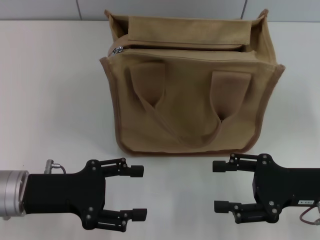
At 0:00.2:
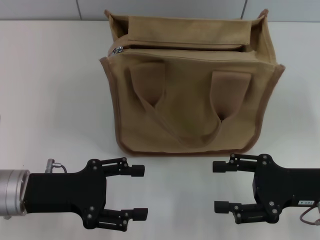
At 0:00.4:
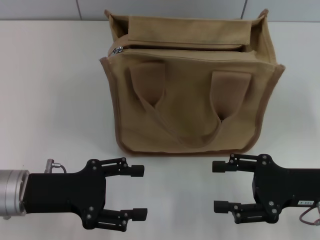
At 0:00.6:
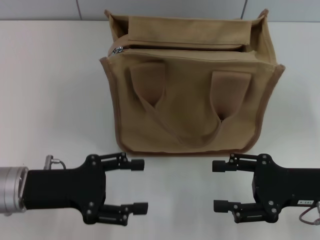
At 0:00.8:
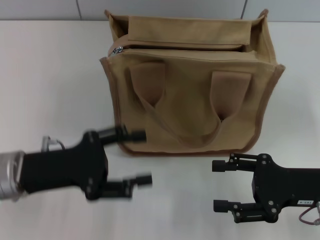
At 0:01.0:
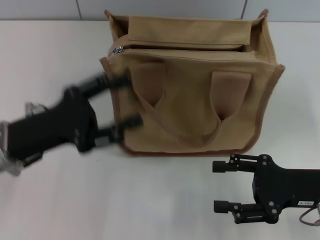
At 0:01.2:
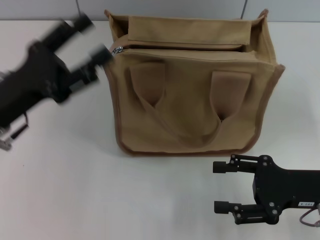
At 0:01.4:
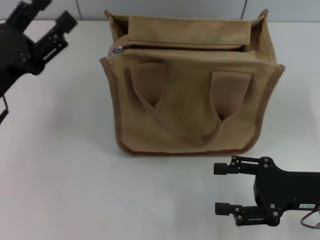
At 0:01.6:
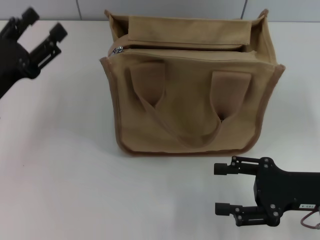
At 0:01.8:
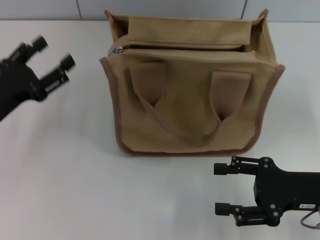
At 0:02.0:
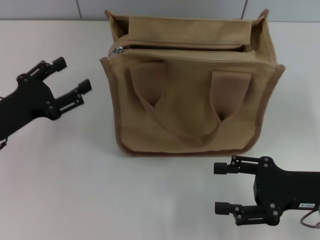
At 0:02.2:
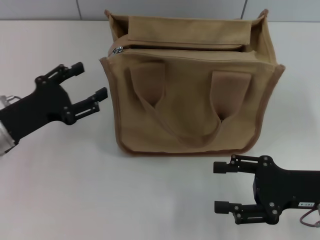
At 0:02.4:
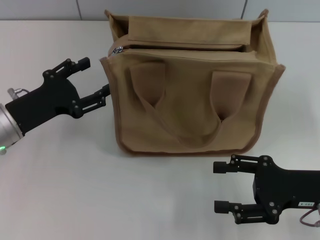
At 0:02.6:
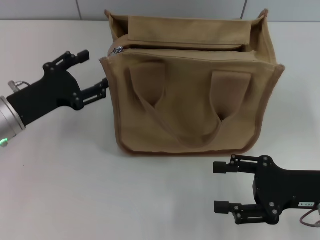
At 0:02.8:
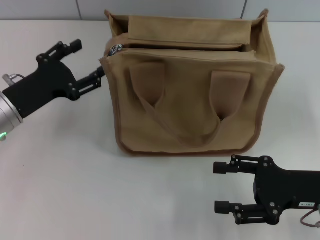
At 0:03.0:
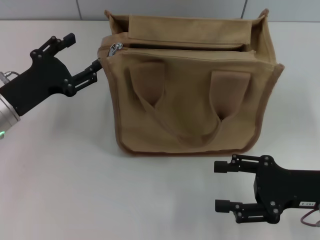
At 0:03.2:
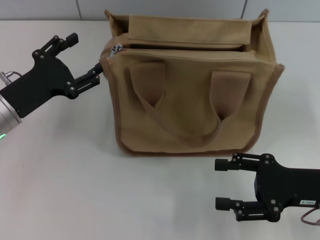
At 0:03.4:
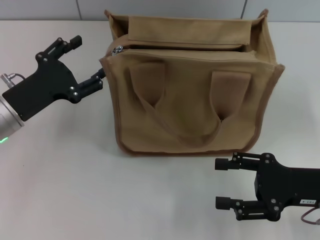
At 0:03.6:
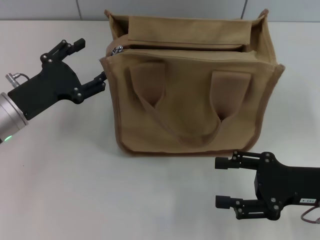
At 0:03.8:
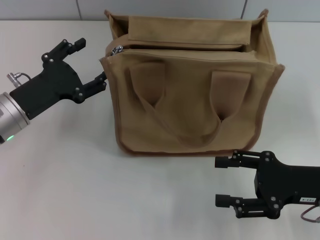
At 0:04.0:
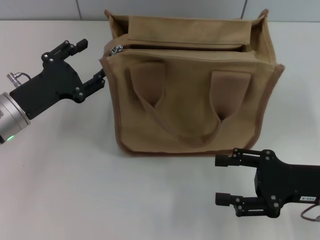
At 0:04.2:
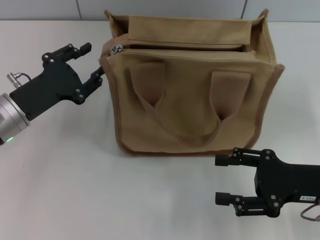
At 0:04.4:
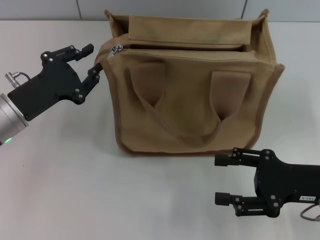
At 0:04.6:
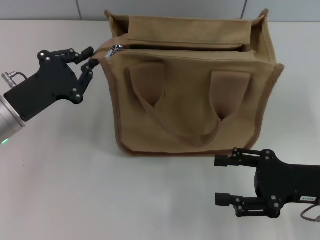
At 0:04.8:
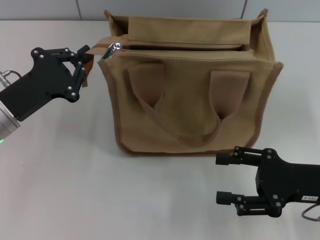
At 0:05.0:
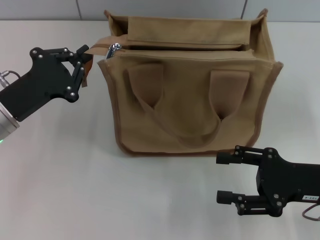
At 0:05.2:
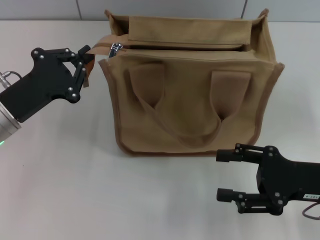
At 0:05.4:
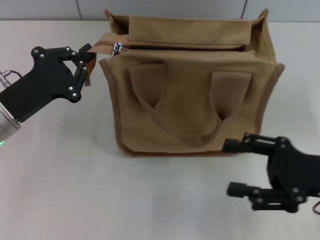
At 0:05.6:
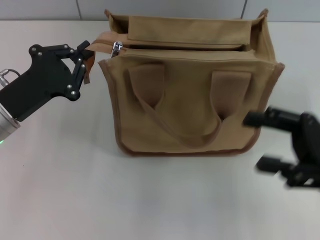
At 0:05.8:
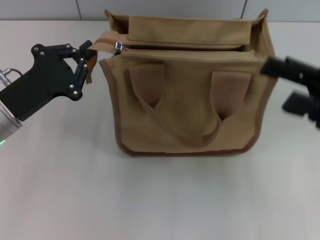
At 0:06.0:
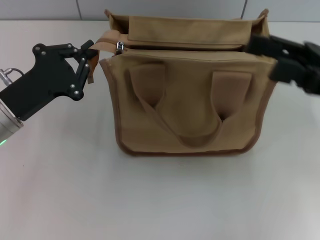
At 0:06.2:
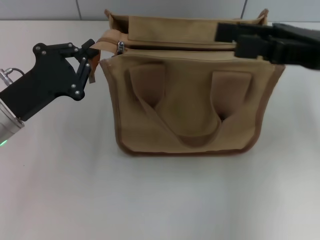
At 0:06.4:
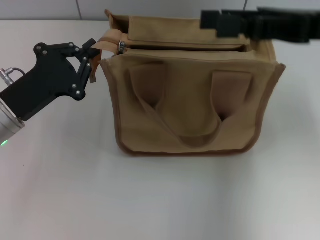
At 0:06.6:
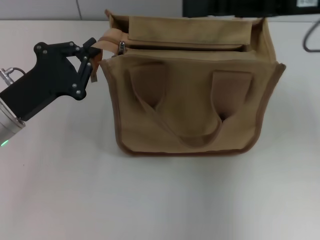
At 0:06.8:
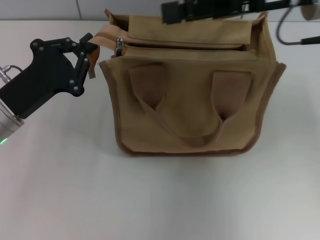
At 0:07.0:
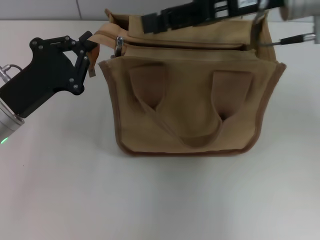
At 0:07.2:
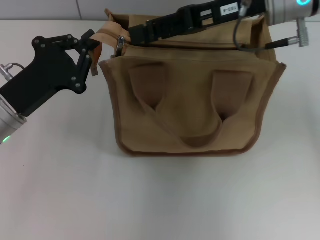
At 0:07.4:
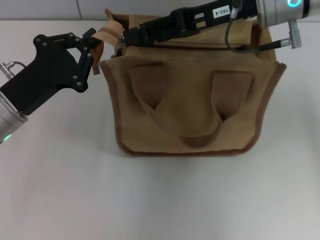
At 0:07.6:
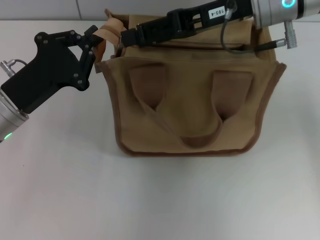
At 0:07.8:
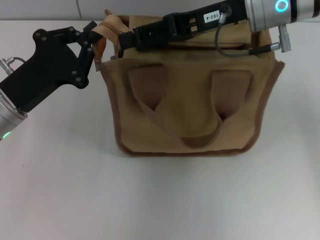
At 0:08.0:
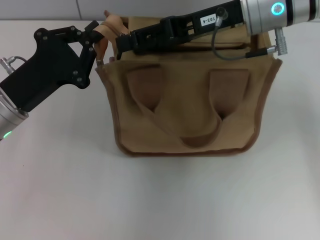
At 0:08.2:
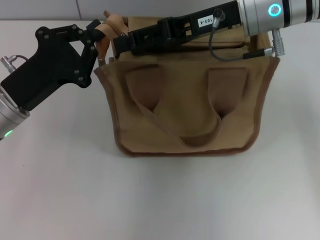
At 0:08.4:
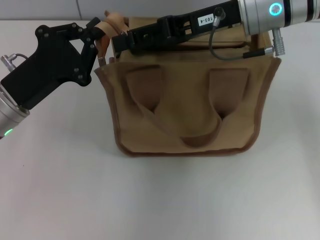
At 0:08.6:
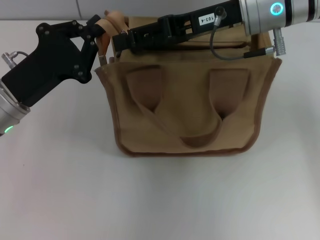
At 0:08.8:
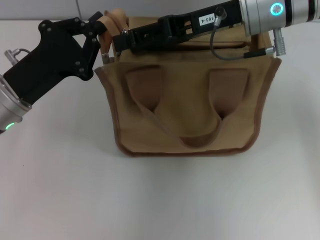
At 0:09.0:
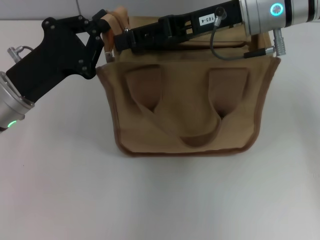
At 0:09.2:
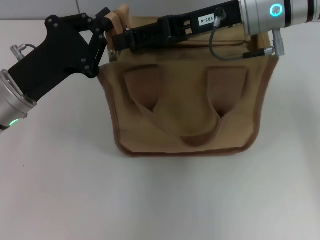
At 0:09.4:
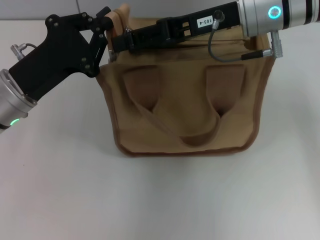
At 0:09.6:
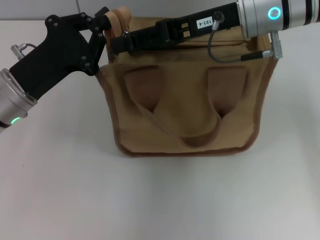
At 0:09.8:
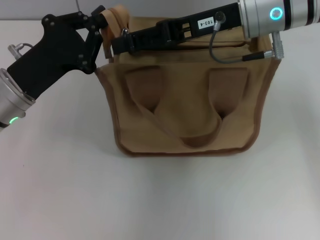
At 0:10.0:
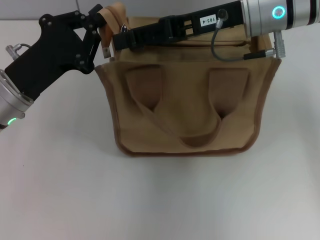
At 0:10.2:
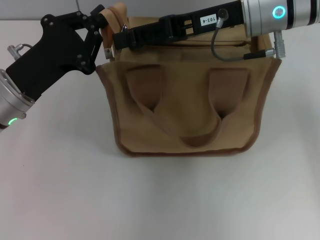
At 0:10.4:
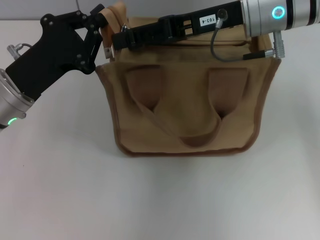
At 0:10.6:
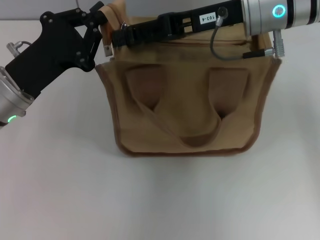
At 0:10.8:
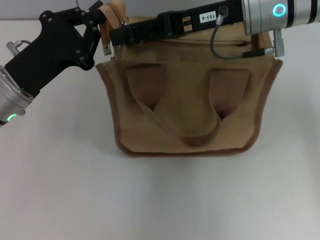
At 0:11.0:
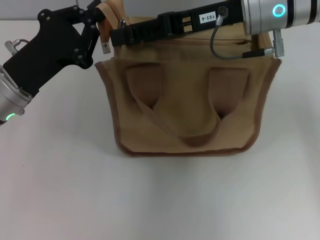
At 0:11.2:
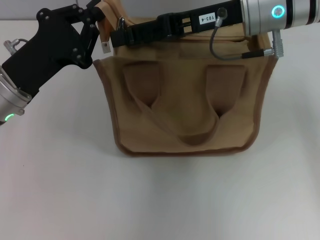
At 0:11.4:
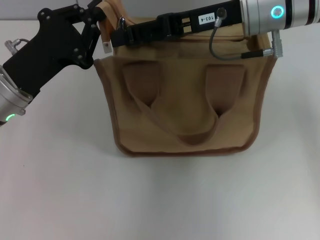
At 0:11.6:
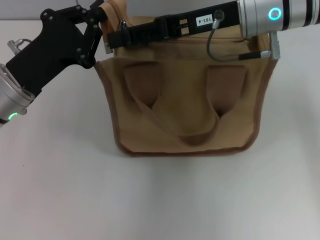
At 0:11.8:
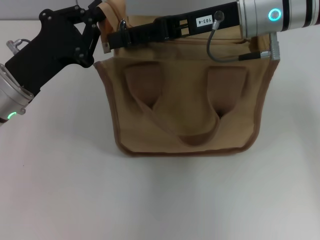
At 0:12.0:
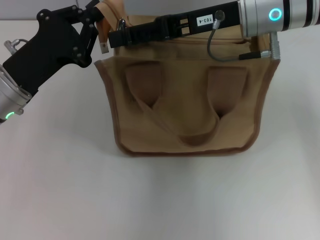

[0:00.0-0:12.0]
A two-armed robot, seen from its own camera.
0:00.0 to 0:01.6: The left gripper moves roughly 5 cm.
0:03.0 to 0:04.4: The left gripper closes.
0:04.4 to 0:06.0: The left gripper closes its fingers. The right gripper heads upward and forward, covering some 10 cm.
0:06.0 to 0:07.6: The right gripper heads to the left, forward and upward, covering about 15 cm.
0:07.6 to 0:09.0: The grippers move only a little.
0:09.0 to 0:10.4: Neither gripper changes place.
0:10.4 to 0:12.0: Neither gripper changes place.

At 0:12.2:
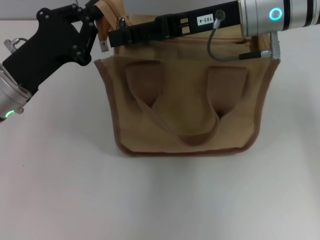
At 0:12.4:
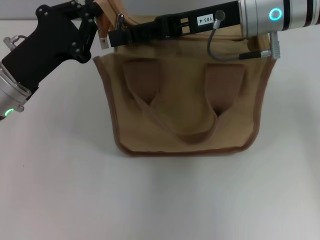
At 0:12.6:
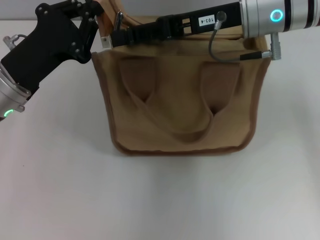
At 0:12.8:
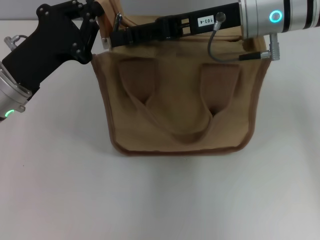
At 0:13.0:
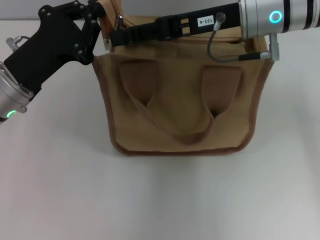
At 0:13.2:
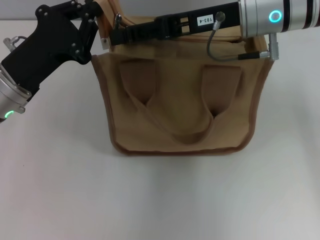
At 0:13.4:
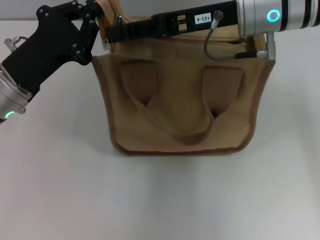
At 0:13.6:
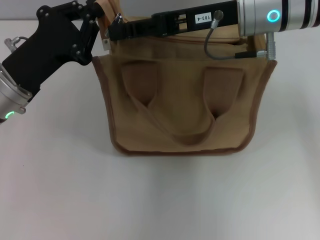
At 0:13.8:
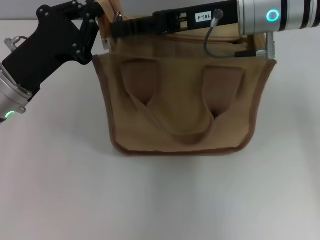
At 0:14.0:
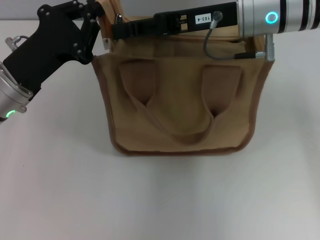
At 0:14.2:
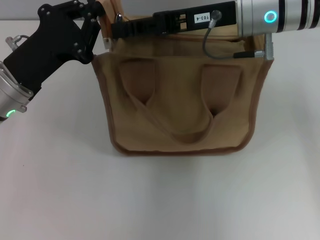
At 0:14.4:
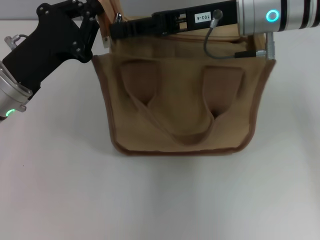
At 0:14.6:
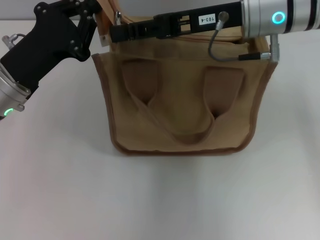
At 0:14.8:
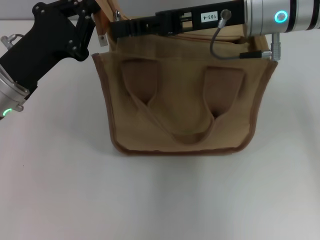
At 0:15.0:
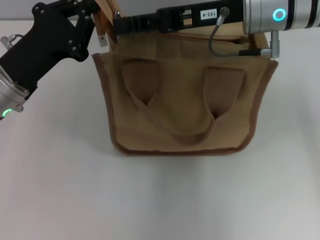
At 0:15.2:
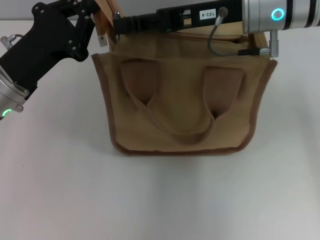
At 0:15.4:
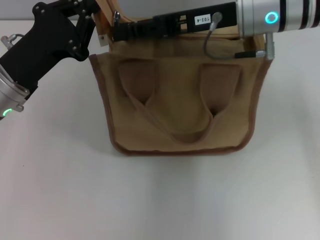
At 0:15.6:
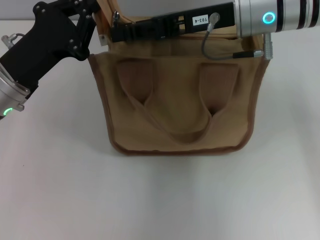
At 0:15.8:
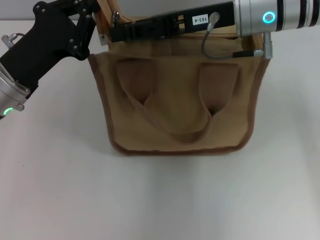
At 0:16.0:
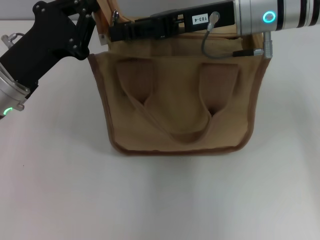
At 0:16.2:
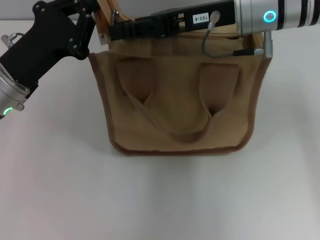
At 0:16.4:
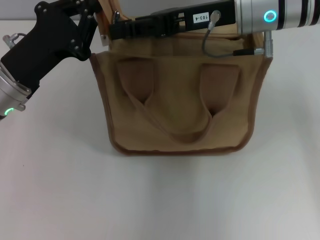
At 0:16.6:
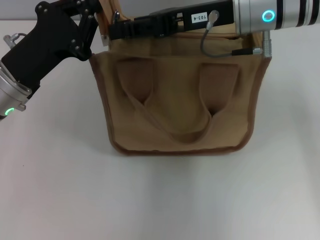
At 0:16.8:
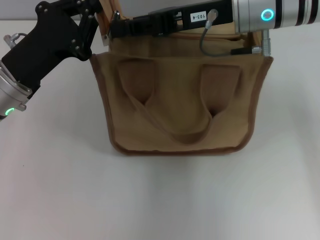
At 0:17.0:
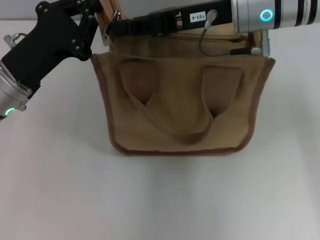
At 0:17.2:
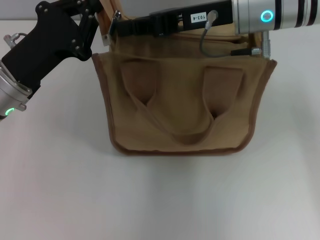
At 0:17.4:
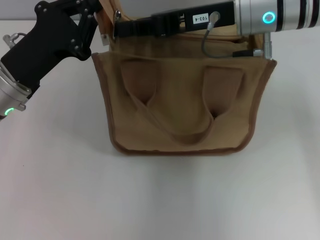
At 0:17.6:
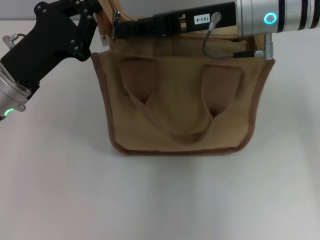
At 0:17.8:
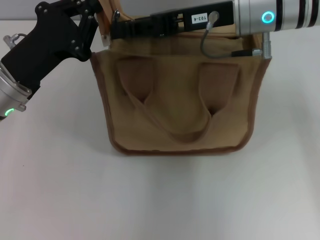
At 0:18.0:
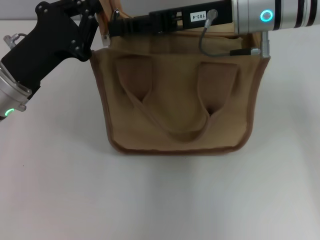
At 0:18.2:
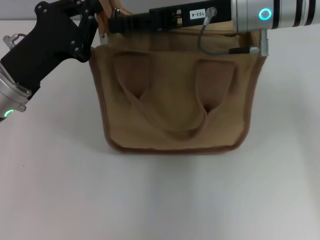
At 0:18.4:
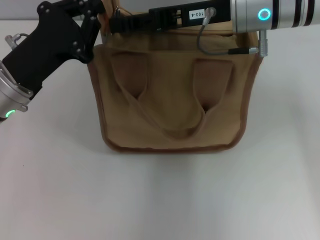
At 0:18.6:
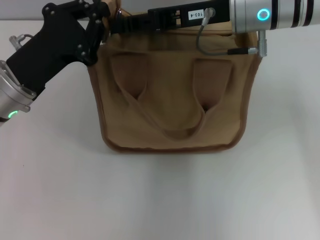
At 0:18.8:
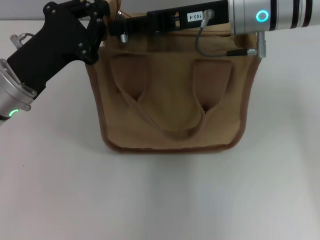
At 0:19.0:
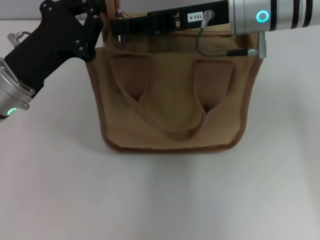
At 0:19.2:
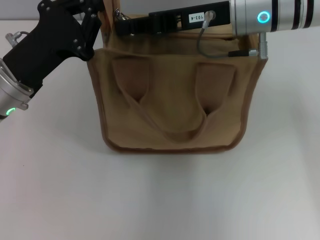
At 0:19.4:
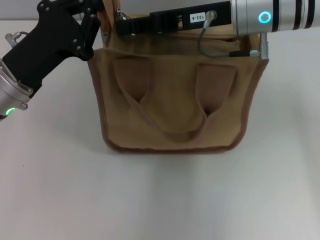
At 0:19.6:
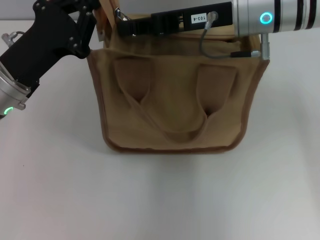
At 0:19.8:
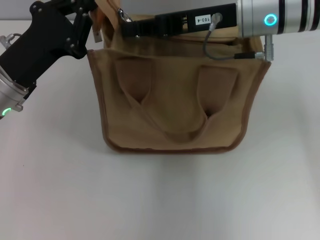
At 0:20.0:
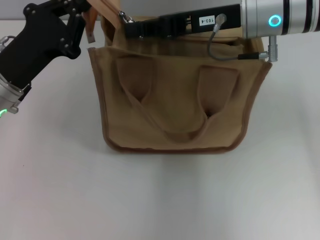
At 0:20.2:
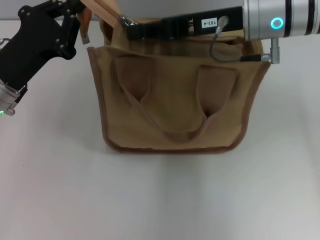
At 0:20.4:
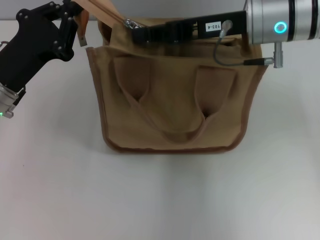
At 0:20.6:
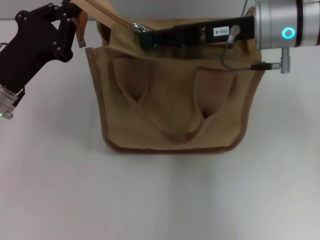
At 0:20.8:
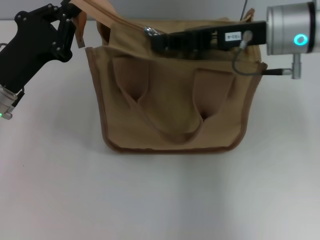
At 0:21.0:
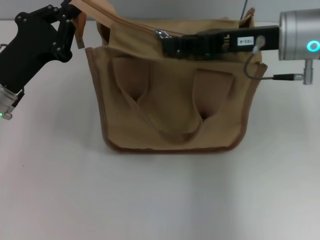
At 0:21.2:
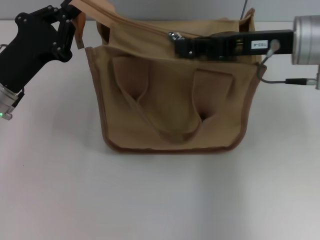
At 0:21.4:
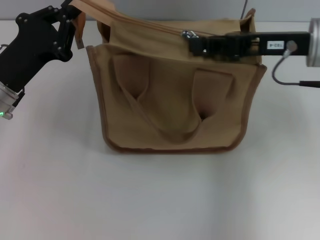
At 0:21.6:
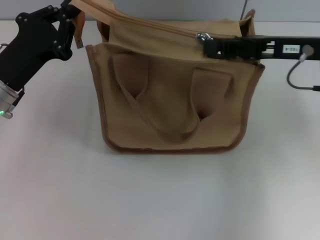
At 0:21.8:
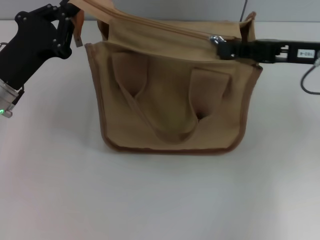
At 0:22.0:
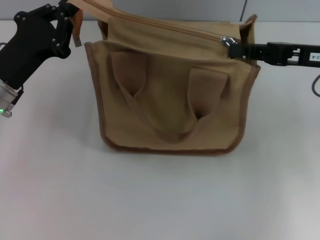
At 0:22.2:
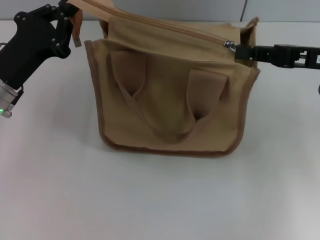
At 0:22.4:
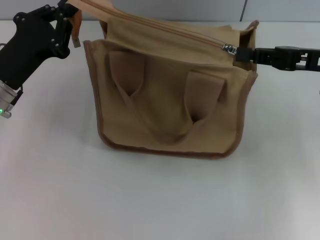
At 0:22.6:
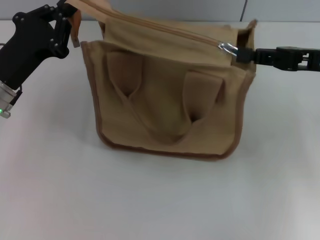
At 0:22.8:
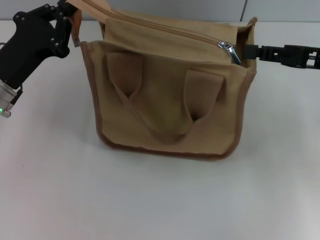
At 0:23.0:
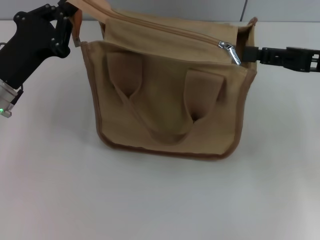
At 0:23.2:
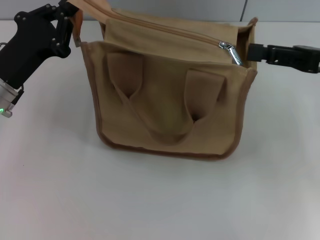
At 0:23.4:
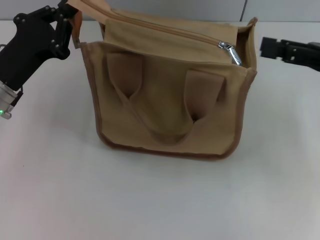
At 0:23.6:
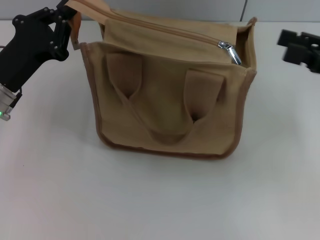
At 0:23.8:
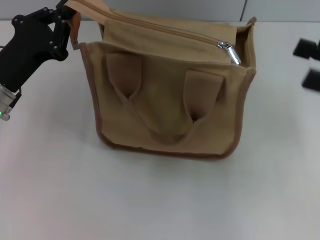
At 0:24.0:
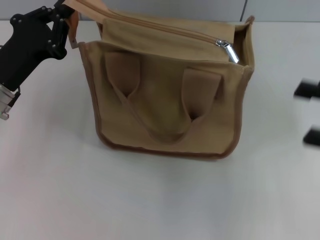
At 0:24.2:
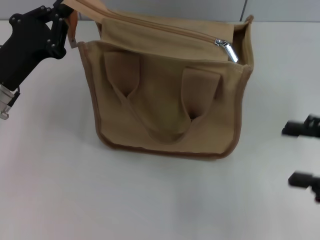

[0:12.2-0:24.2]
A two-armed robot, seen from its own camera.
Step, 0:12.2 to 0:22.6: Pull up the zipper with your right hand.
0:12.2 to 0:13.8: The right gripper closes its fingers.
0:13.8 to 0:15.2: Both grippers stay about where they are.
0:15.2 to 0:16.6: Both grippers stay put.
0:16.6 to 0:18.2: The right gripper closes, then opens again.
0:18.2 to 0:19.8: The right gripper closes.
0:19.8 to 0:21.2: The right gripper shifts approximately 5 cm to the right.
0:21.2 to 0:22.6: The right gripper moves to the right, roughly 10 cm.
0:22.6 to 0:24.2: The right gripper travels backward by approximately 10 cm, and opens.
